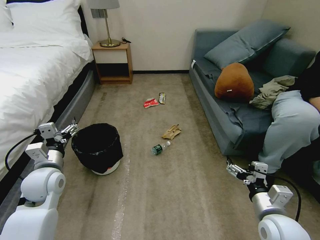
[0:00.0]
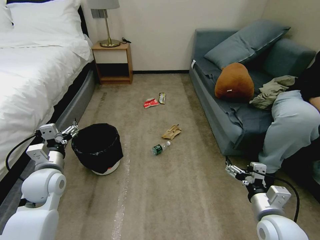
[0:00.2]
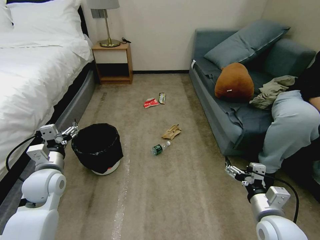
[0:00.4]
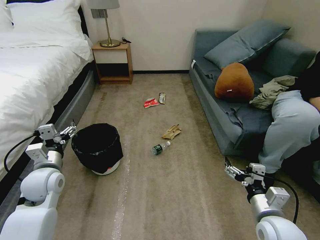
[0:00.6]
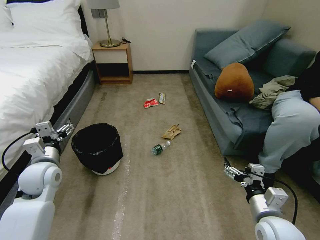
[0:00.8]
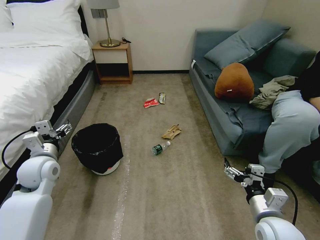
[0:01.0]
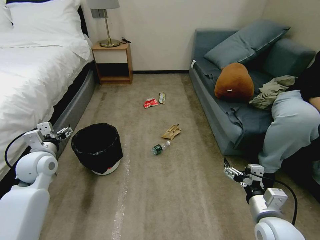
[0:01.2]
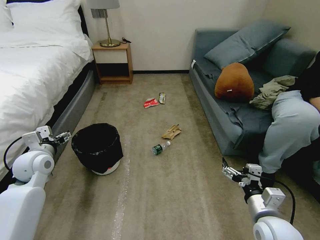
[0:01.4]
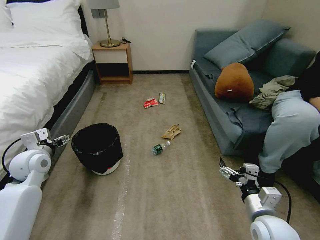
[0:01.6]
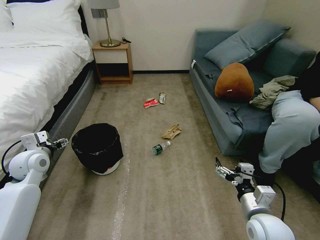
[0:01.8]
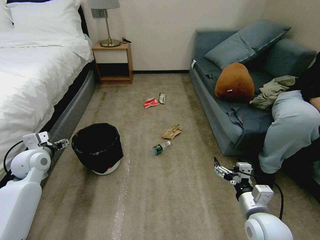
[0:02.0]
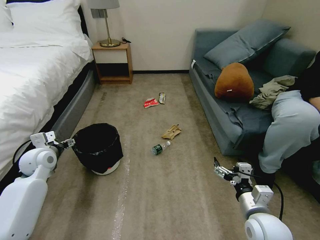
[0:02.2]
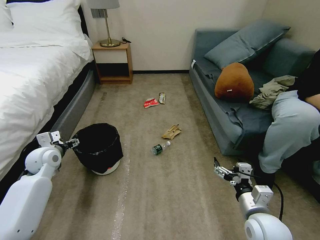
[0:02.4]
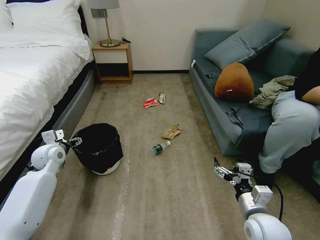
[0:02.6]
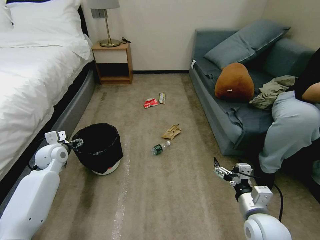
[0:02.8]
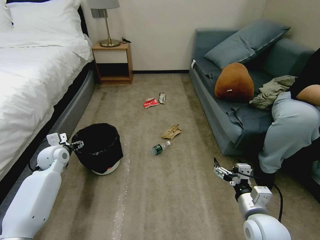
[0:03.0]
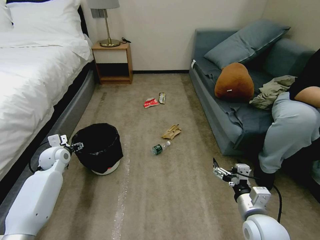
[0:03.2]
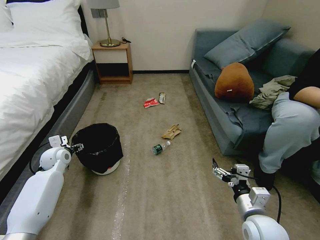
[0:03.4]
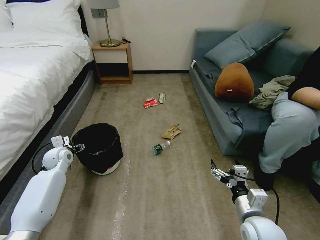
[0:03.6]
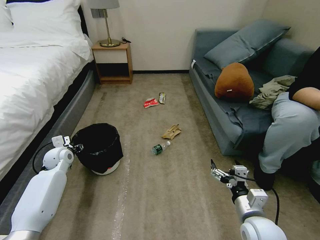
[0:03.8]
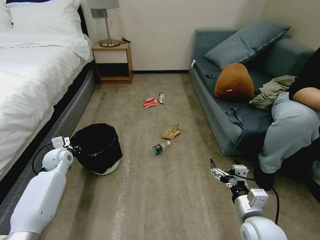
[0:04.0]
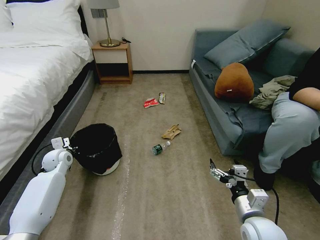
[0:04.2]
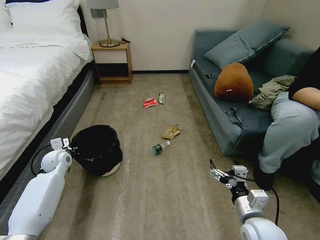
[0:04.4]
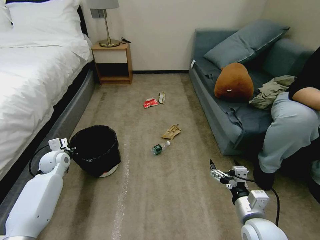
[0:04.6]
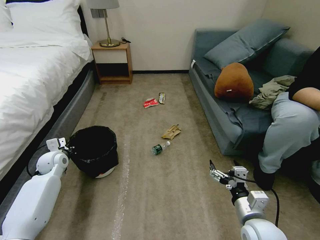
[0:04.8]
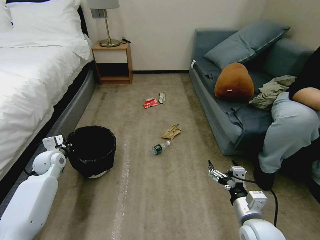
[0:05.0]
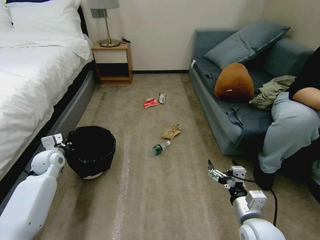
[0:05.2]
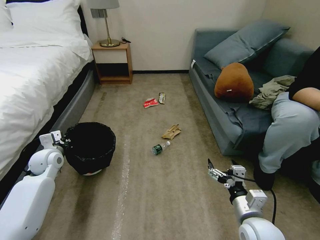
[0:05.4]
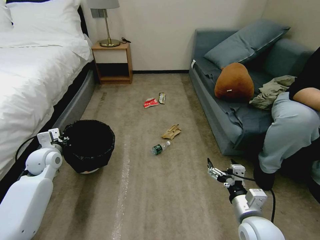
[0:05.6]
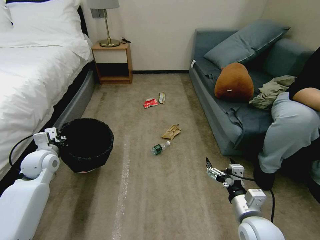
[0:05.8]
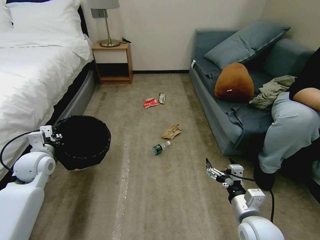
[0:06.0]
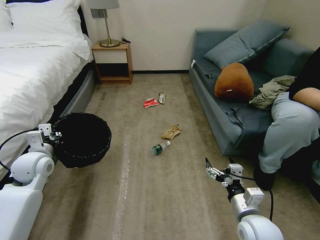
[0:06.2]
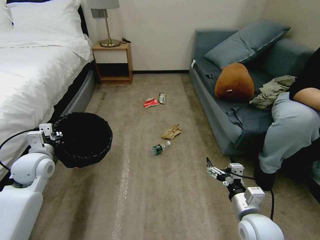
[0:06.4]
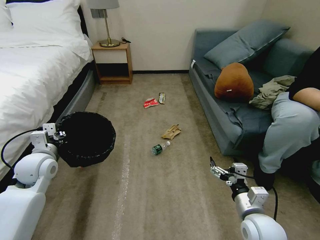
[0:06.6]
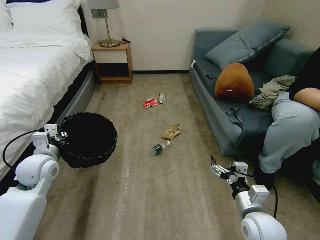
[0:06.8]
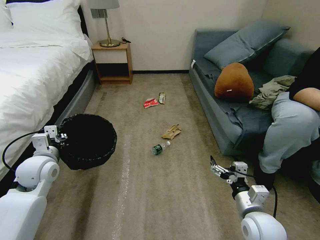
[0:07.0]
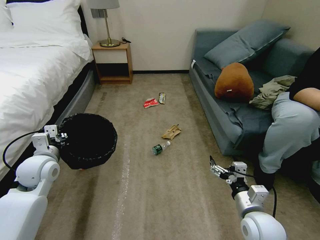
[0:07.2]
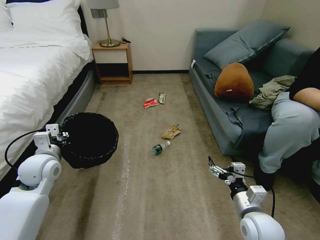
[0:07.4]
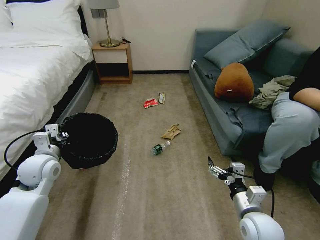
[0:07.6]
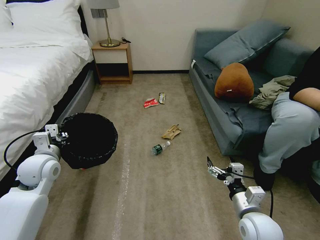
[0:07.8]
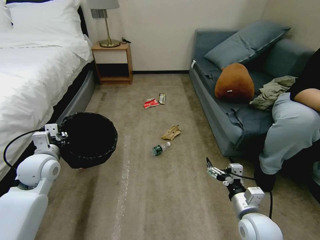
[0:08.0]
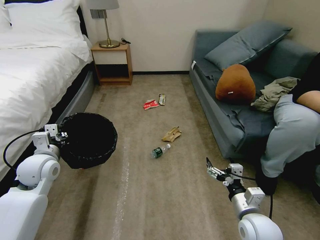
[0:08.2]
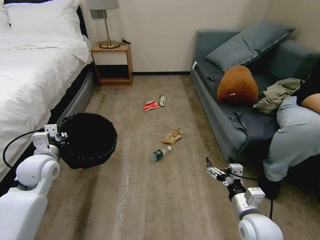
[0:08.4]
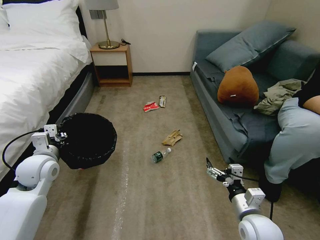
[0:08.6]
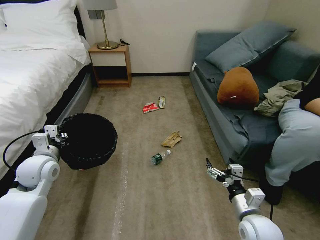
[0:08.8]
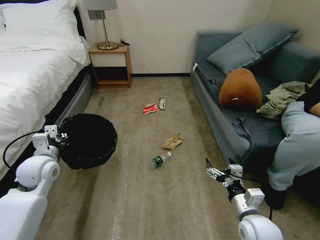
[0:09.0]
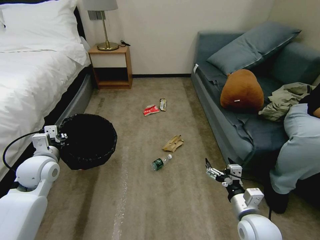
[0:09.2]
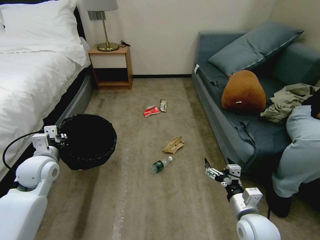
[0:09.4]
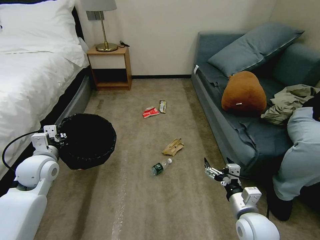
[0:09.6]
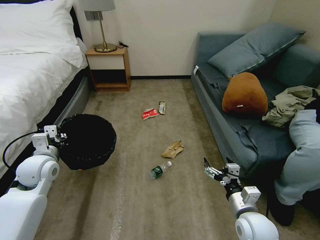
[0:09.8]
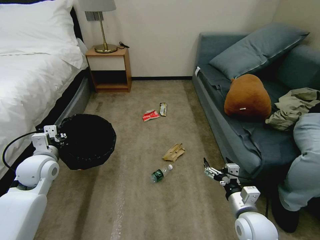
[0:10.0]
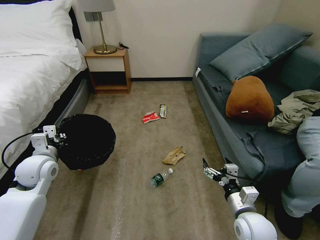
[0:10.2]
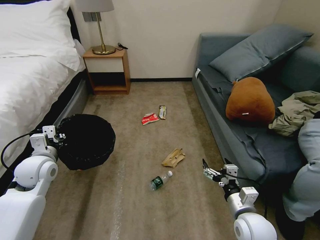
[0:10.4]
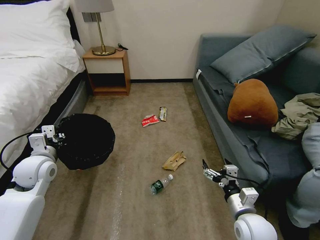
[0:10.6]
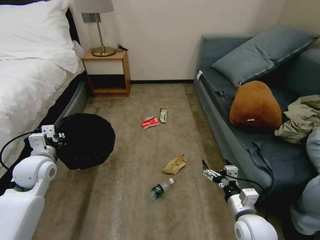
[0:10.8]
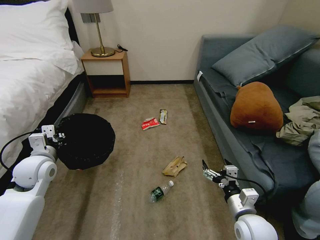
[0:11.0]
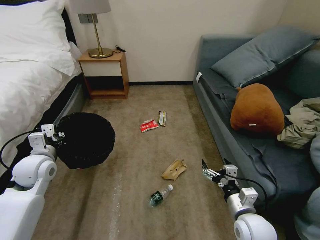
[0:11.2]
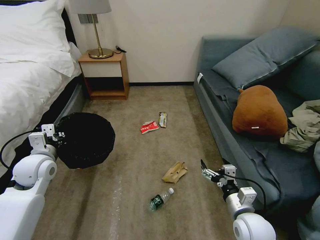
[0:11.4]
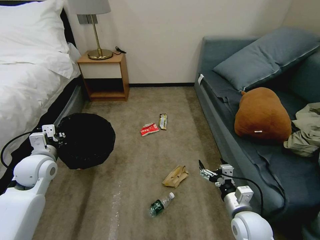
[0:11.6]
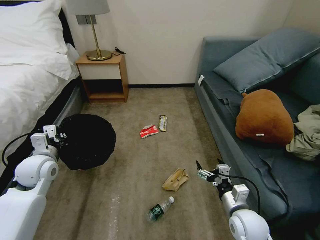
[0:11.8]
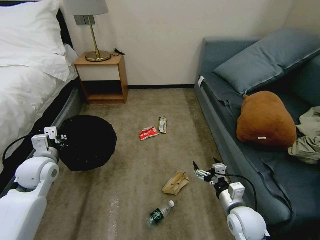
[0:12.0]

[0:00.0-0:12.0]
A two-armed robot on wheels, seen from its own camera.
Task of the whole recording: Pick up the trash bin, then pick up the garbage on the floor and place it into the trash bin.
0:00.0 to 0:01.6: The left gripper shifts roughly 10 cm to the left and forward.
0:01.6 to 0:03.0: The left gripper goes roughly 10 cm forward and downward.
0:03.0 to 0:04.4: The left gripper closes its fingers.
0:04.4 to 0:06.0: The left gripper heads upward and backward, covering about 10 cm.
0:06.0 to 0:07.6: The left gripper ends up about 5 cm from where it was.

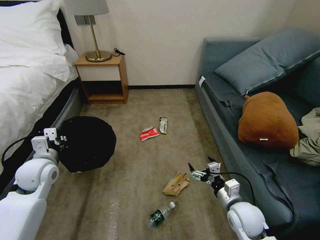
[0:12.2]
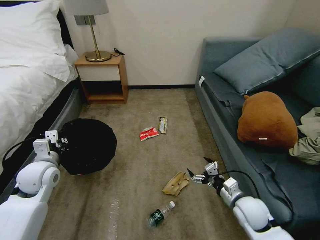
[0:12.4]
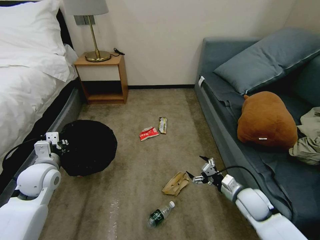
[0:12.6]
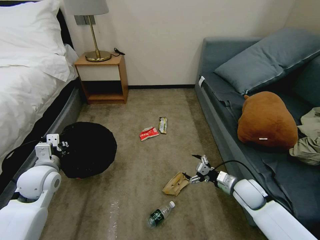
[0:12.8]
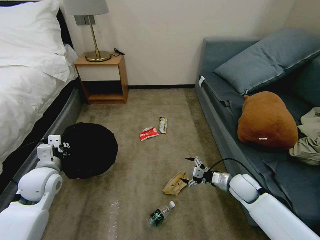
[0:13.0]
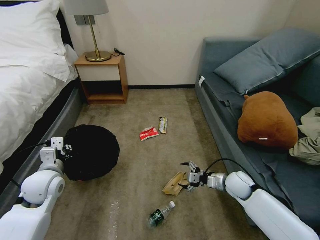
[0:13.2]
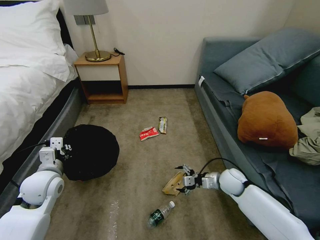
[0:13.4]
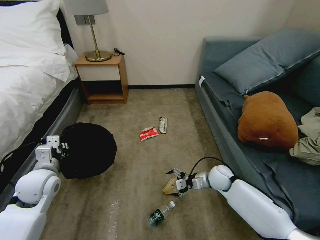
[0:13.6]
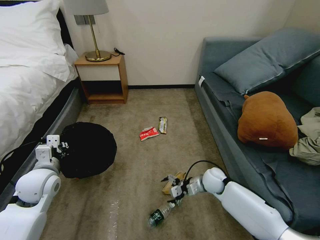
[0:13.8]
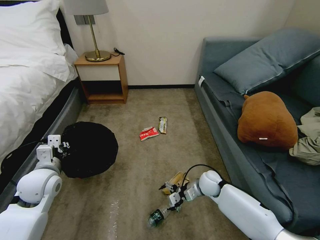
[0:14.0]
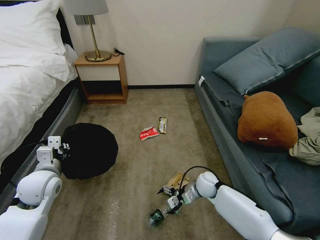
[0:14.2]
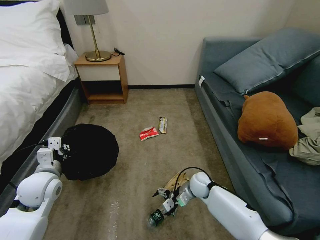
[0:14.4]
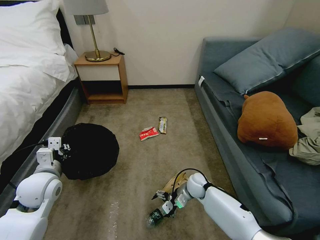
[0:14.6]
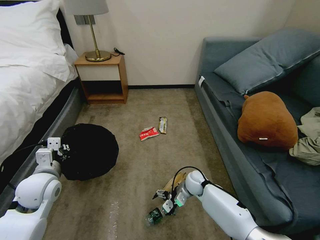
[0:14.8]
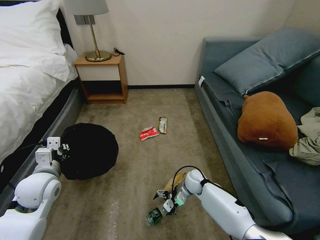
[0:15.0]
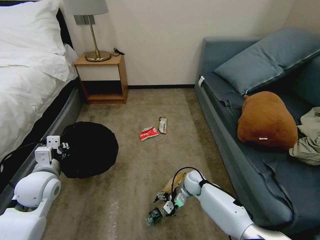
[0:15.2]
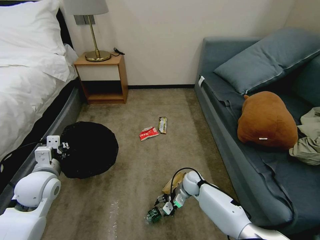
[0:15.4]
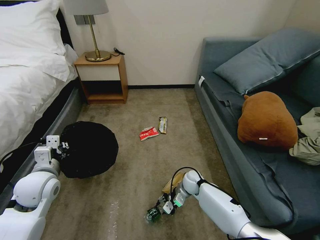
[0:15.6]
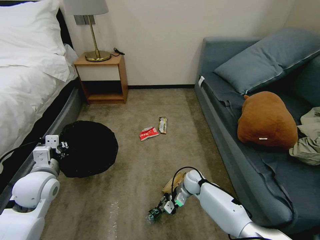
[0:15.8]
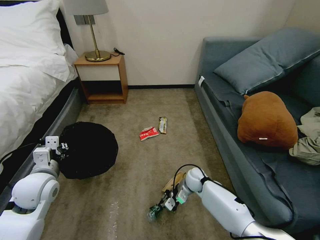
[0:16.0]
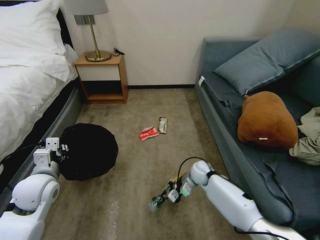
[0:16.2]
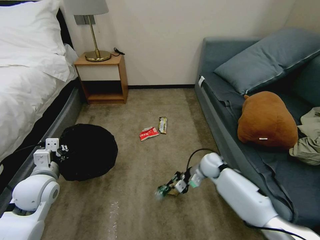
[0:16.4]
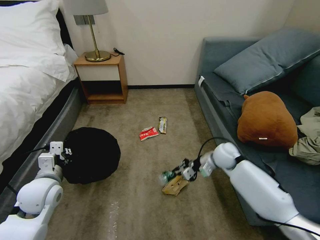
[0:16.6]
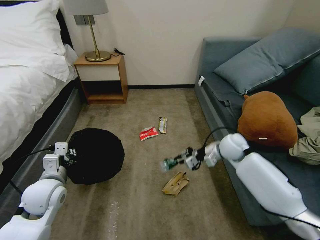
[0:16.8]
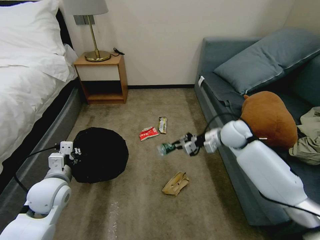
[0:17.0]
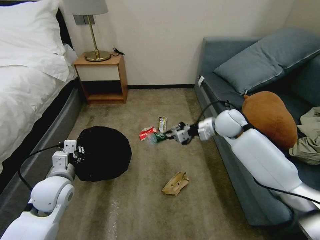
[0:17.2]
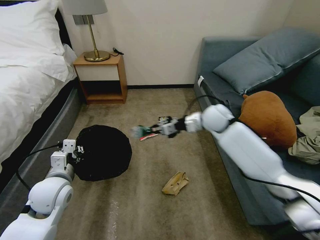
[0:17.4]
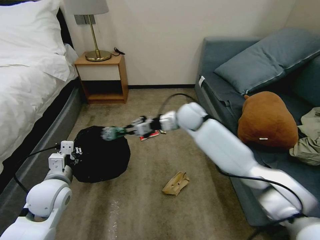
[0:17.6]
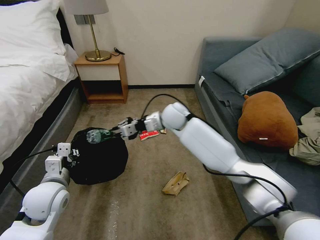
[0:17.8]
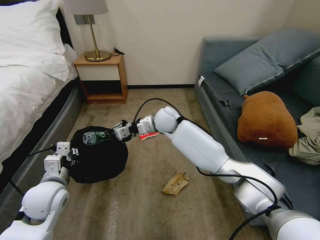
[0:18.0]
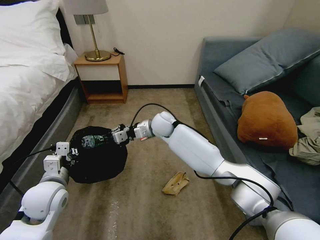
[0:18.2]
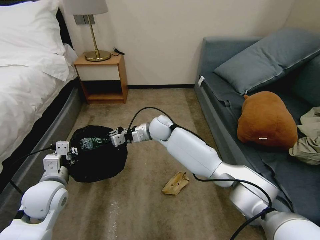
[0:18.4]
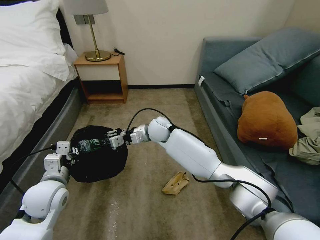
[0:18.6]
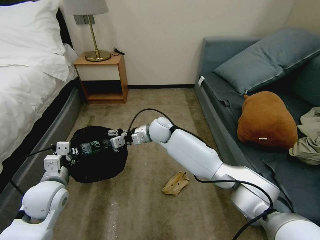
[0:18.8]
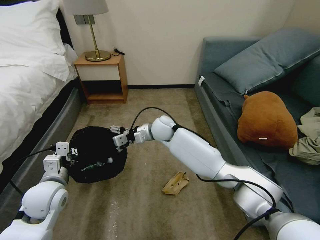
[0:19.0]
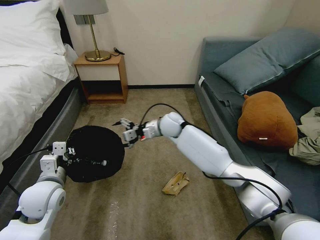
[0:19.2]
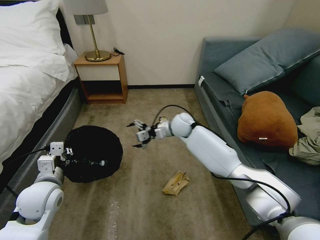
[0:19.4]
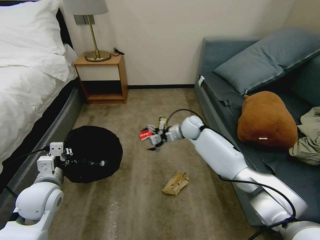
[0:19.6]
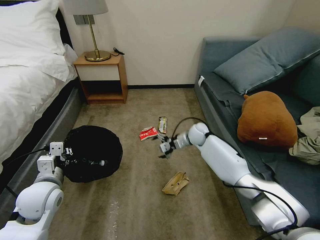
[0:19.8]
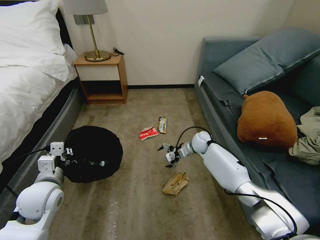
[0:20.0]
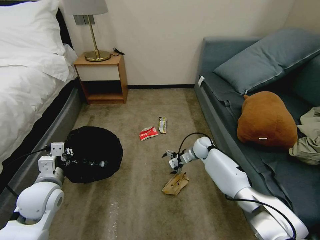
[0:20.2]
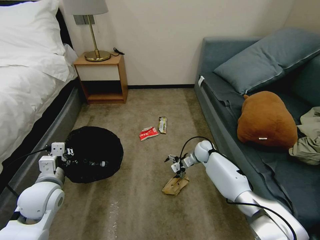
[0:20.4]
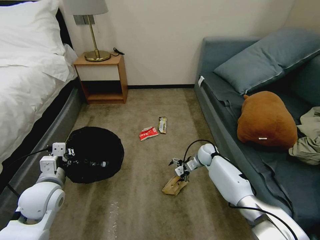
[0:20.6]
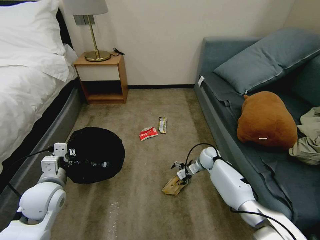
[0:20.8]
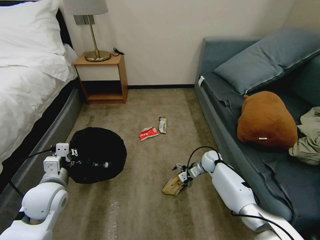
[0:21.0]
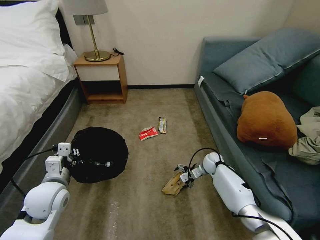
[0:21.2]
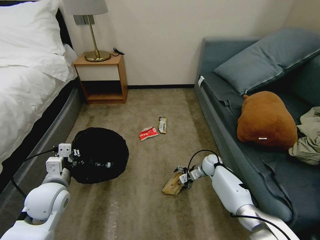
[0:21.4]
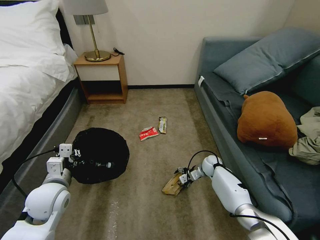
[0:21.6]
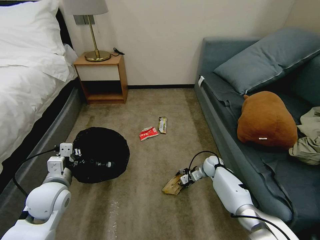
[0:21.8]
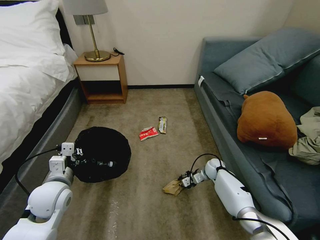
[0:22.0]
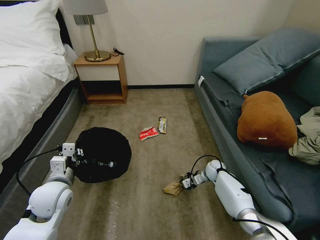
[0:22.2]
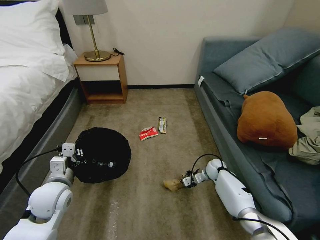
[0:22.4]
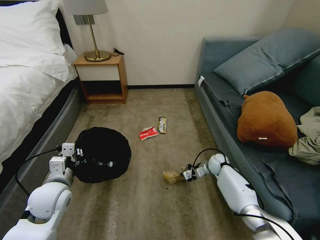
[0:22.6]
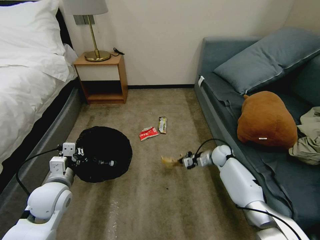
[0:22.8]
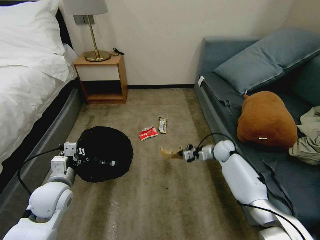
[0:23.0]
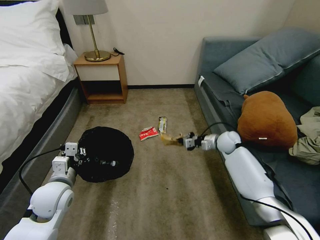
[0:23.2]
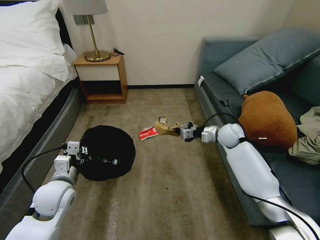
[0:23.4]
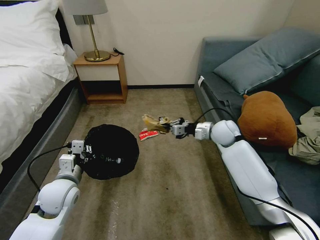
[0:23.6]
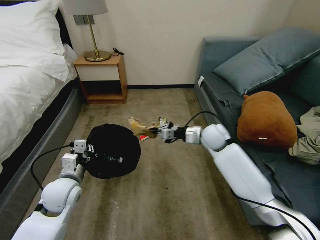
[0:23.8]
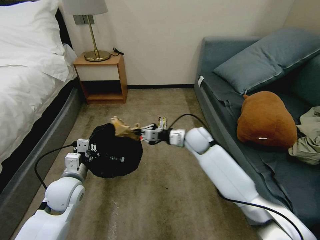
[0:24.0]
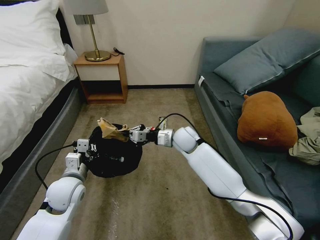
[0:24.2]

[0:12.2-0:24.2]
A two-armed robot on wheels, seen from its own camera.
Task of the whole recording: Pick up the trash bin, then pick up the garbage on the floor and place it into the trash bin.
0:12.2 to 0:13.8: The right gripper is displaced forward by approximately 15 cm.
0:13.8 to 0:15.2: The right gripper moves to the left and downward, roughly 10 cm.
0:15.2 to 0:16.6: The right gripper moves upward and to the right, approximately 20 cm, and closes up.
0:16.6 to 0:18.2: The right gripper heads to the left, covering approximately 25 cm.
0:18.2 to 0:19.8: The right gripper heads to the right and downward, covering about 20 cm, and opens up.
0:19.8 to 0:21.2: The right gripper is displaced downward, to the right and backward by some 20 cm.
0:21.2 to 0:22.6: The right gripper closes.
0:22.6 to 0:24.2: The right gripper shifts roughly 25 cm upward and to the left.
